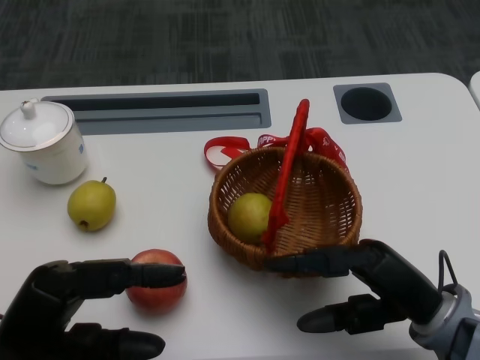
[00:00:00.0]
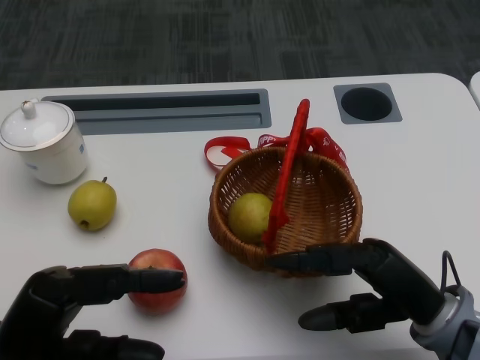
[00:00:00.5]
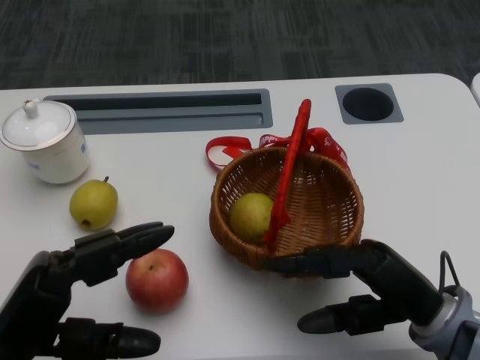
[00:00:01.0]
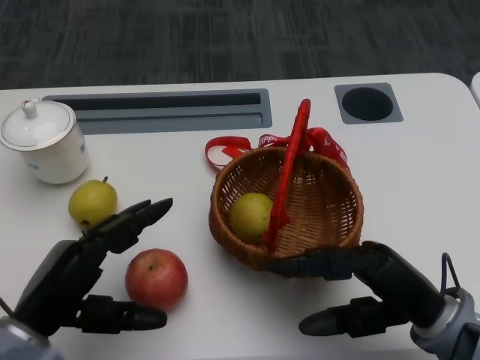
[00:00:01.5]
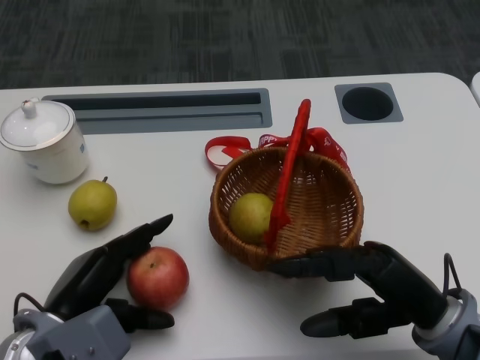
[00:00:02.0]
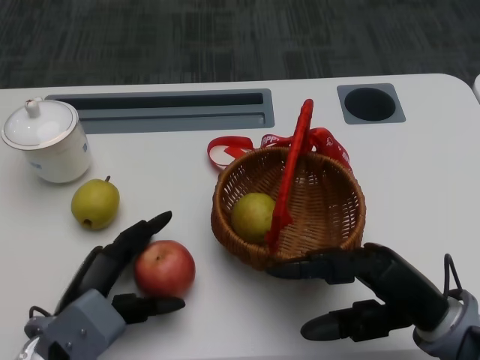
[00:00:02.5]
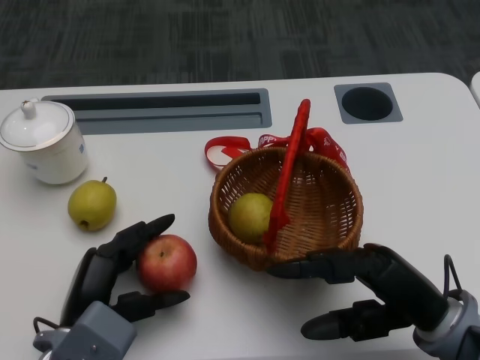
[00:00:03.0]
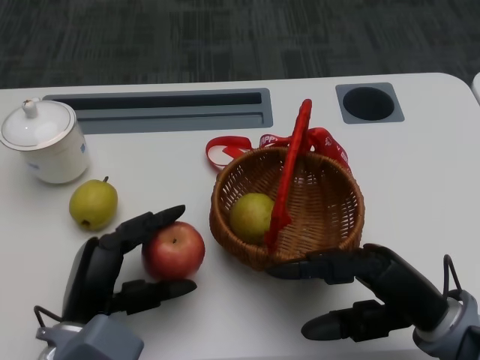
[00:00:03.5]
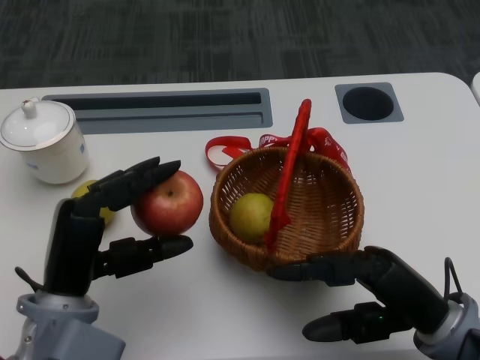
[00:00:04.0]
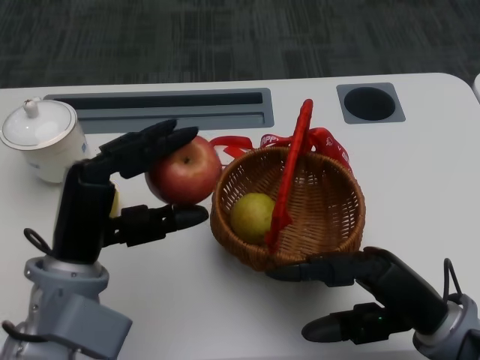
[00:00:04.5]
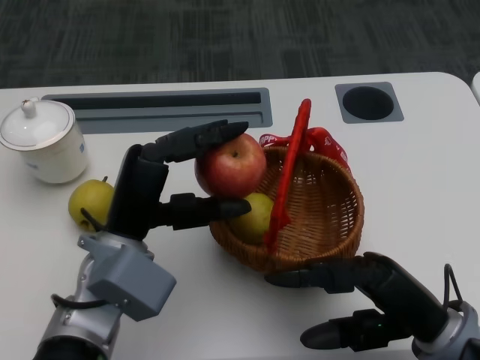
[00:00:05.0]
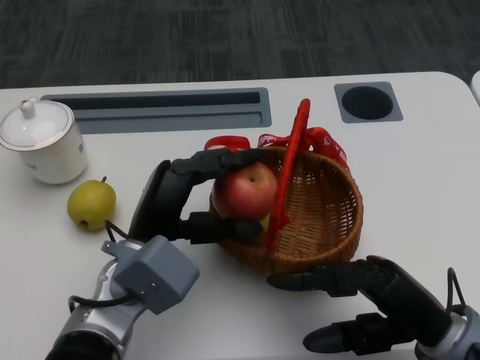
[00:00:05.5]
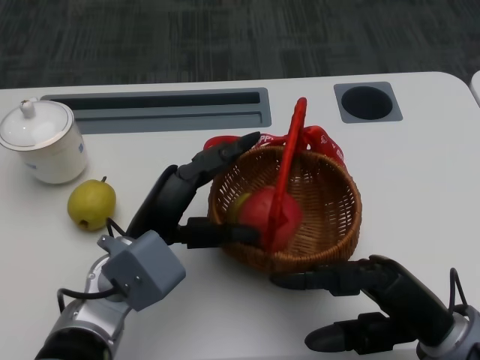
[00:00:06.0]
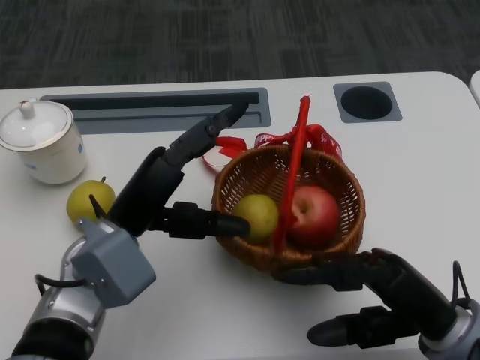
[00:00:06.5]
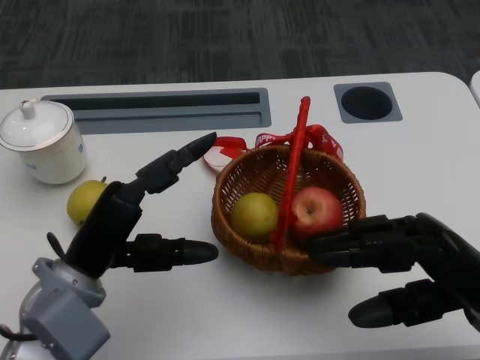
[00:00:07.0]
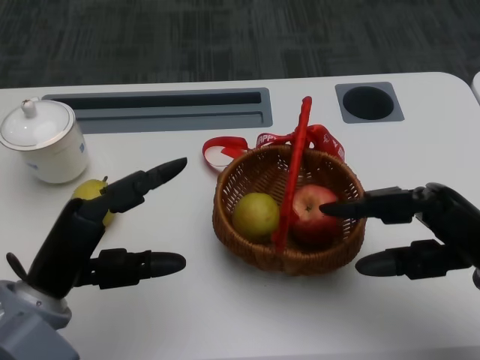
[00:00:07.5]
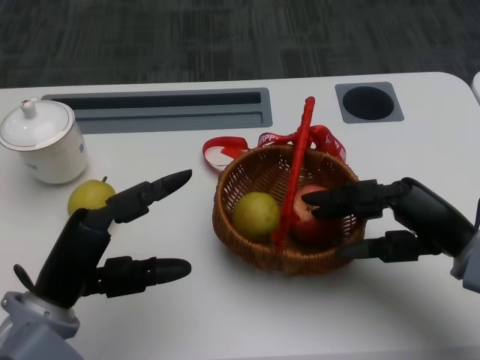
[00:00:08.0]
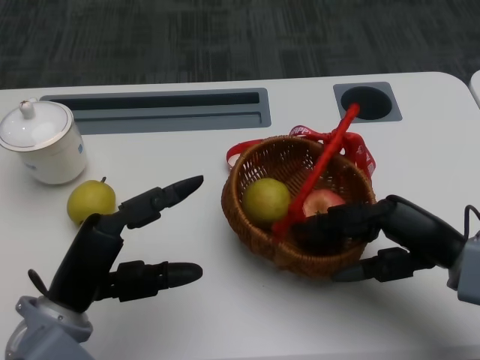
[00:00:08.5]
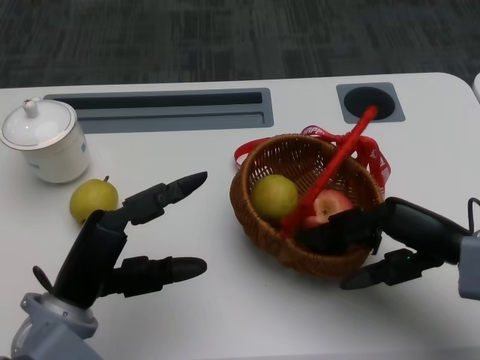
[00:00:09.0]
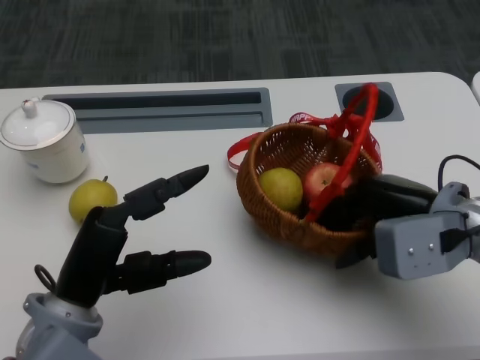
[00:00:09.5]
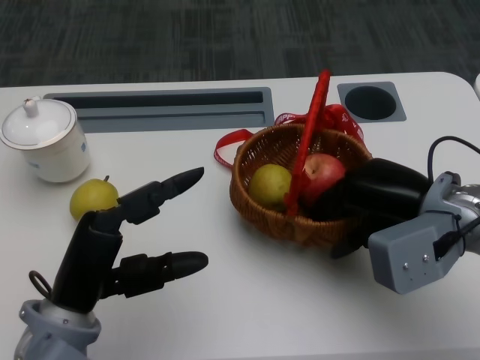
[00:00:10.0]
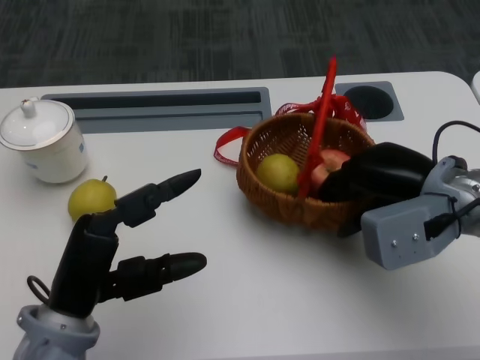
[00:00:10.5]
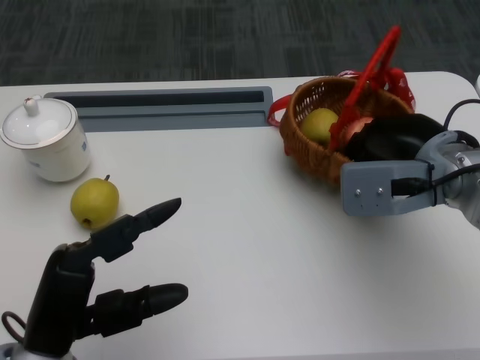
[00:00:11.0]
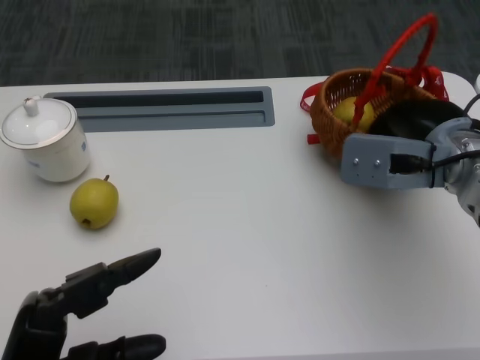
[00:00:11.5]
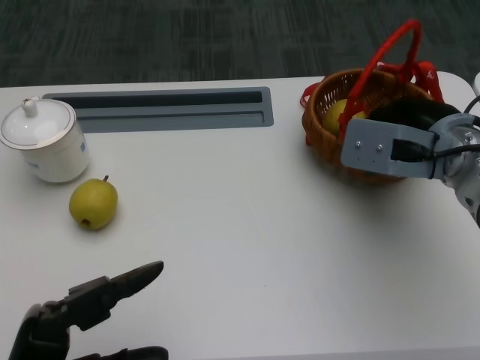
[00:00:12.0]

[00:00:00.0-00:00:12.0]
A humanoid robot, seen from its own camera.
Step, 00:00:00.5 to 00:00:02.0: Grasp the apple with the left gripper.
Step, 00:00:02.5 to 00:00:04.5: Place the apple into the basket with the left gripper.
Step, 00:00:05.0 to 00:00:07.5: Grasp the basket with the right gripper.
Step, 00:00:08.0 to 00:00:09.5: Move the basket to the front of the table with the right gripper.
00:00:02.0 to 00:00:04.0: The left hand shifts by roughly 5 cm.
00:00:04.0 to 00:00:06.0: The left hand shifts approximately 5 cm to the right.
00:00:06.0 to 00:00:08.0: The left hand shifts approximately 10 cm to the left and backward. Meanwhile the right hand heads forward, covering roughly 5 cm.
00:00:08.0 to 00:00:10.0: The right hand ends up approximately 5 cm from where it was.
00:00:10.0 to 00:00:12.0: The left hand travels backward by about 10 cm. The right hand moves some 5 cm.

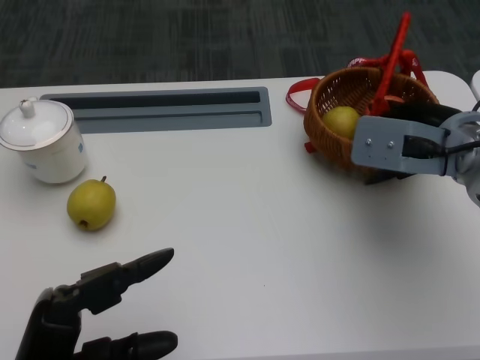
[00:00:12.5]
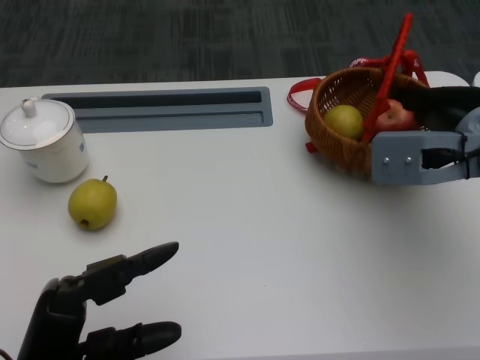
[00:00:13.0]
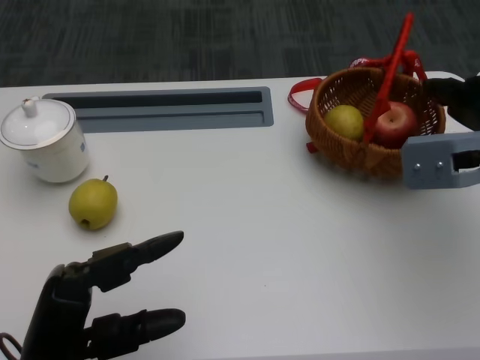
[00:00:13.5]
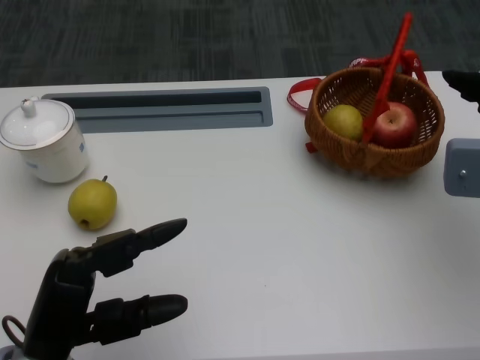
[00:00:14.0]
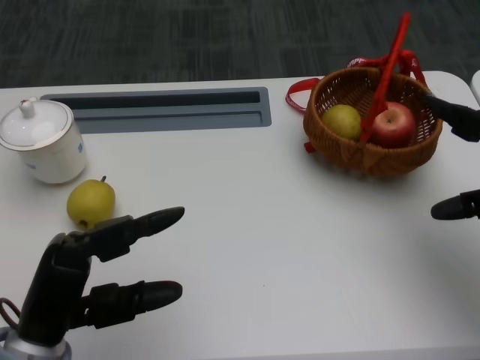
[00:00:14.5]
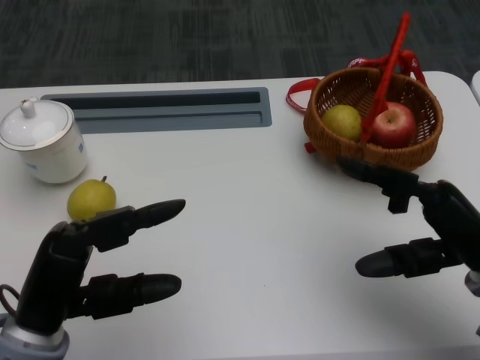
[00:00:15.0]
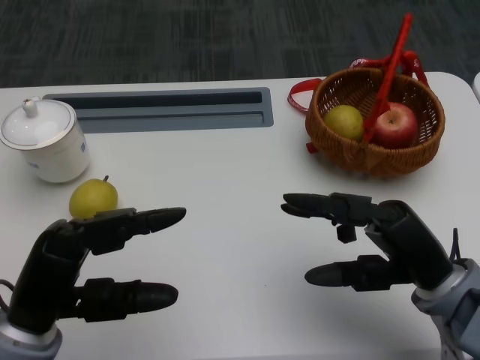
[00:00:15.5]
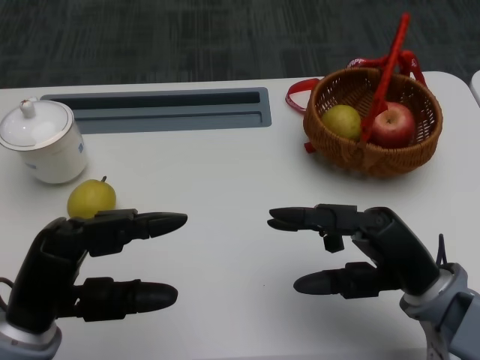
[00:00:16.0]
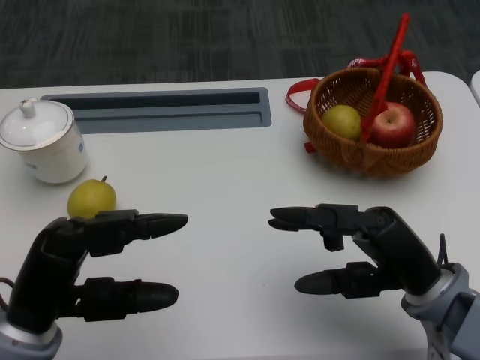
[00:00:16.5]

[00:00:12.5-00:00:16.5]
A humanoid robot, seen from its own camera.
00:00:12.5 to 00:00:14.5: The right hand goes roughly 10 cm to the right and backward.
00:00:14.5 to 00:00:16.5: The right hand shifts approximately 15 cm to the left, downward and backward.

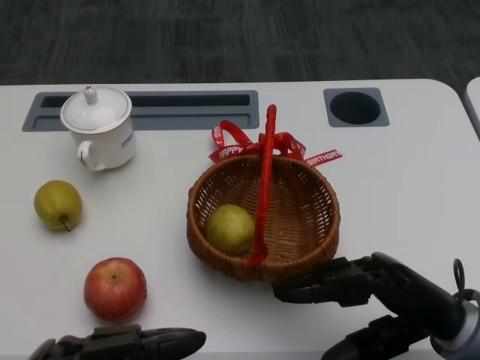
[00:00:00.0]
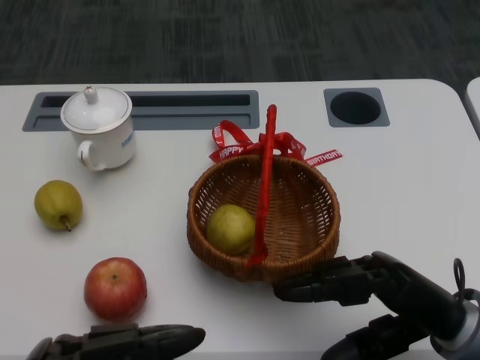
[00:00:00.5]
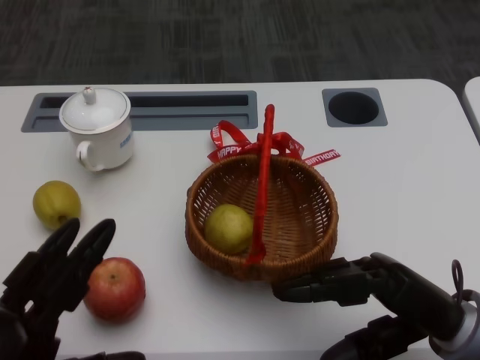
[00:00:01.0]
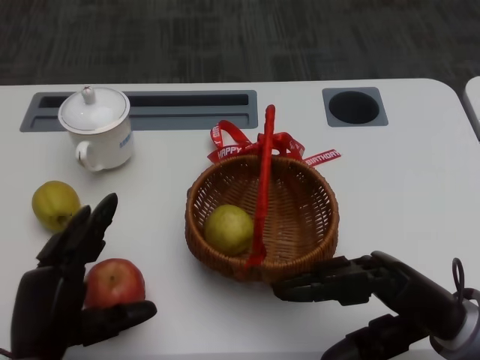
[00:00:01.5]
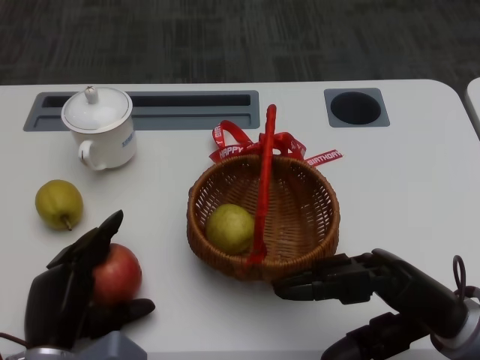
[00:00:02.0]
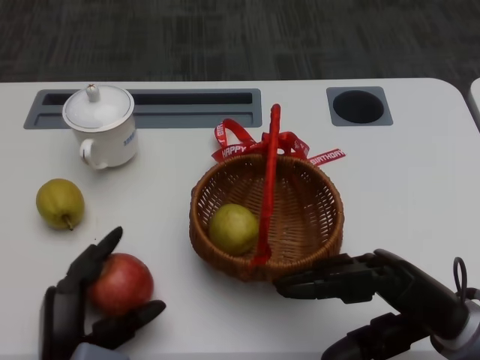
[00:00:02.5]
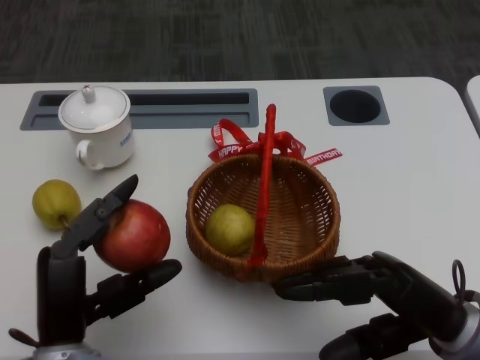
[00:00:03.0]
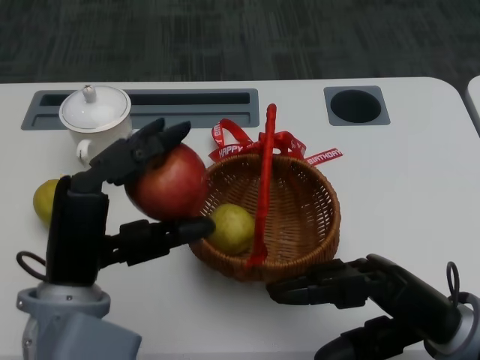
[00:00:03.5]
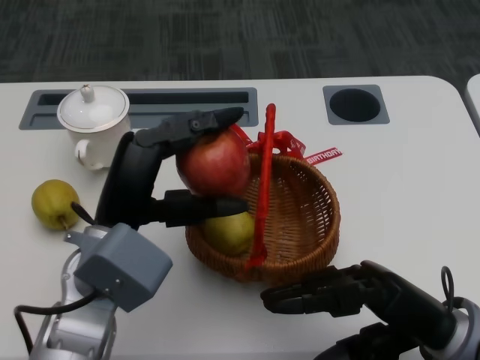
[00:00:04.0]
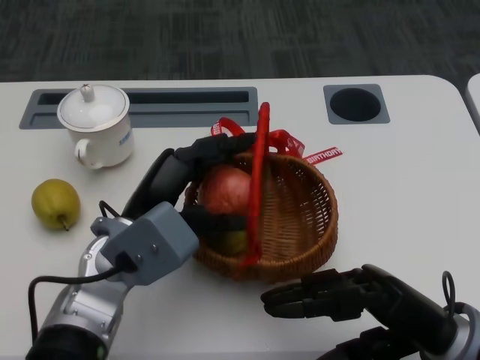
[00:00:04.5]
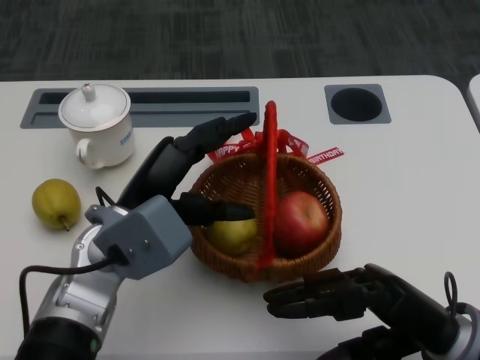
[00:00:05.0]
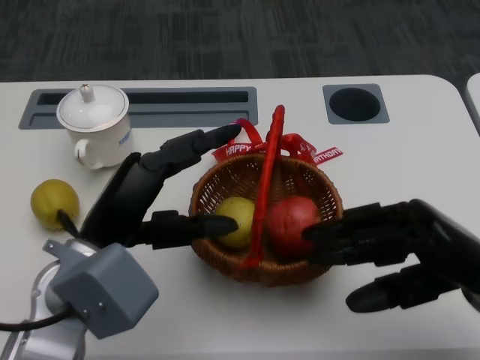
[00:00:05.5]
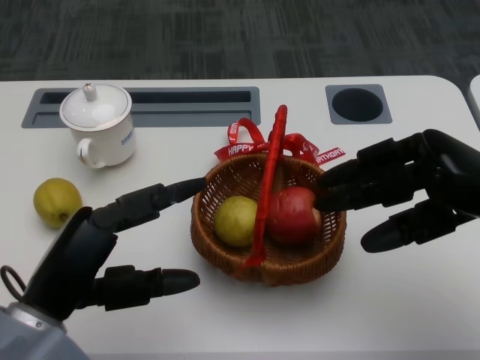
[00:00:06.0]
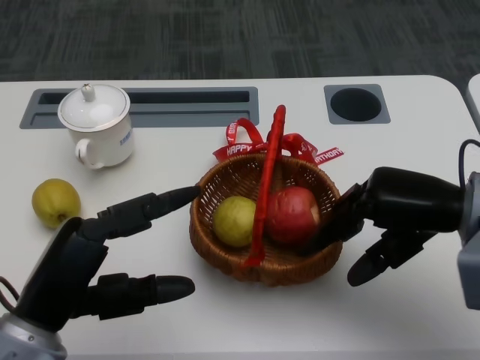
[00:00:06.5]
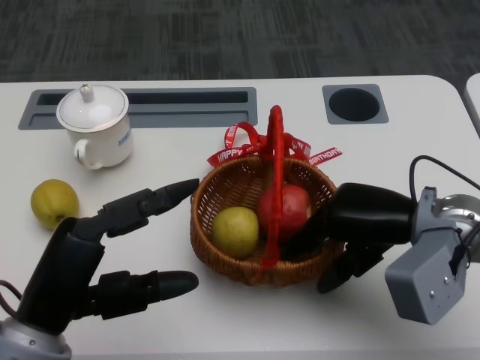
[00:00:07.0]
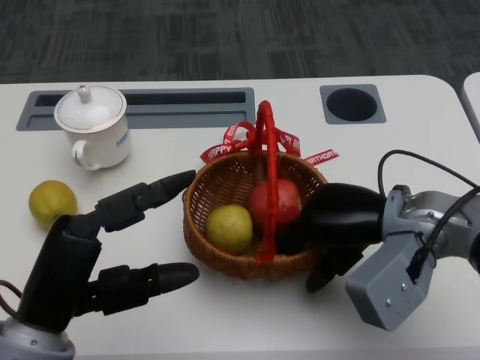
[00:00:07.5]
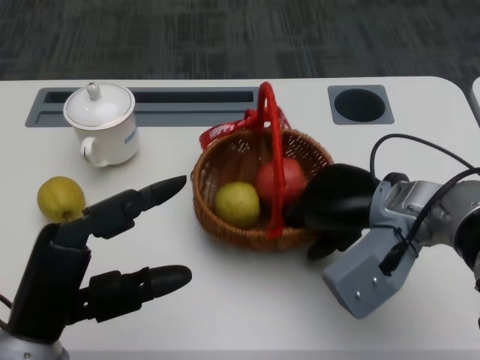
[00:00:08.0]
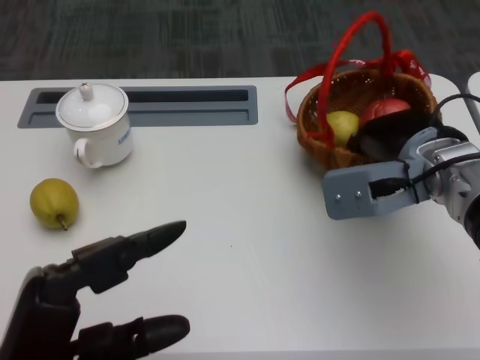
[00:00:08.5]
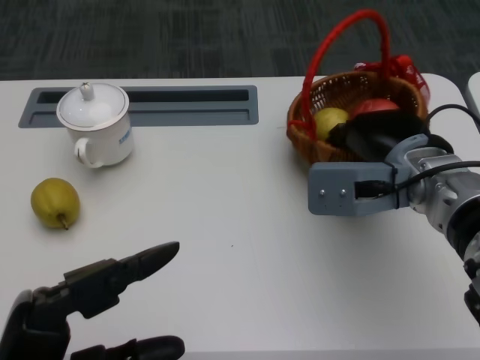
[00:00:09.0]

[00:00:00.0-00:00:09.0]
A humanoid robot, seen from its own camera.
Step, 00:00:00.5 to 00:00:02.0: Grasp the apple with the left gripper.
Step, 00:00:02.5 to 00:00:04.0: Place the apple into the basket with the left gripper.
Step, 00:00:04.5 to 00:00:06.0: Grasp the basket with the right gripper.
Step, 00:00:06.5 to 00:00:07.5: Move the basket to the front of the table with the right gripper.
00:00:02.0 to 00:00:04.5: The left hand goes about 15 cm upward, forward and to the right.
00:00:04.5 to 00:00:07.0: The right hand goes some 10 cm forward and upward. Meanwhile the left hand goes approximately 15 cm backward and to the left.
00:00:07.0 to 00:00:09.0: The left hand heads backward, covering about 5 cm.
